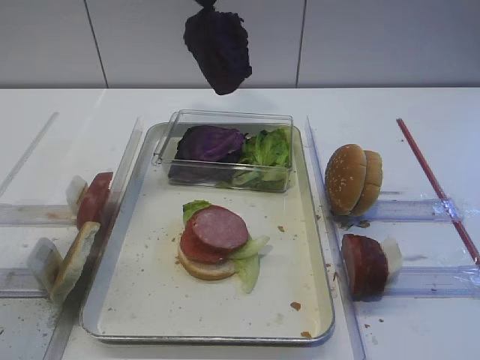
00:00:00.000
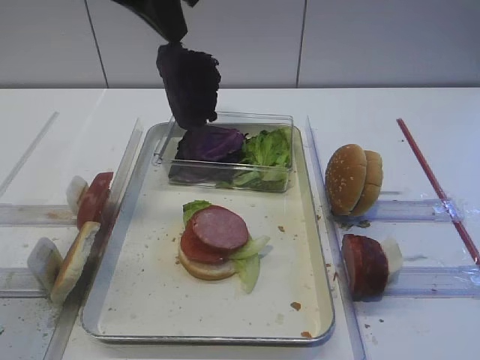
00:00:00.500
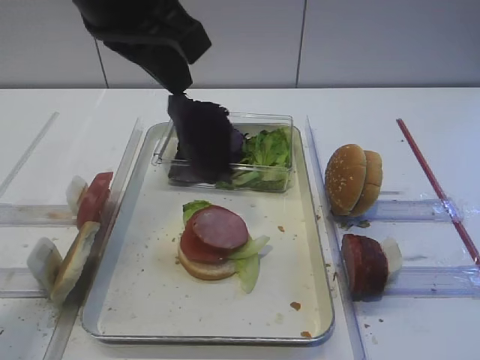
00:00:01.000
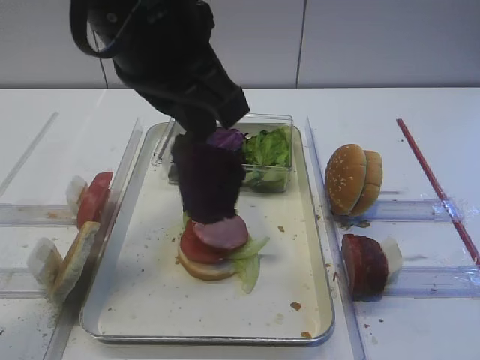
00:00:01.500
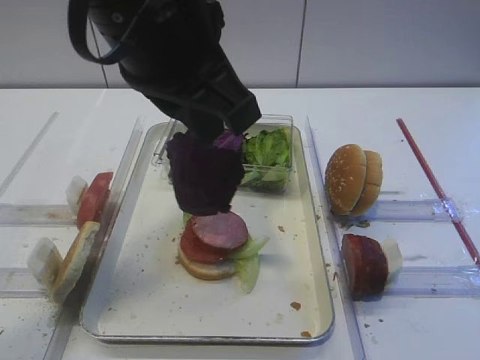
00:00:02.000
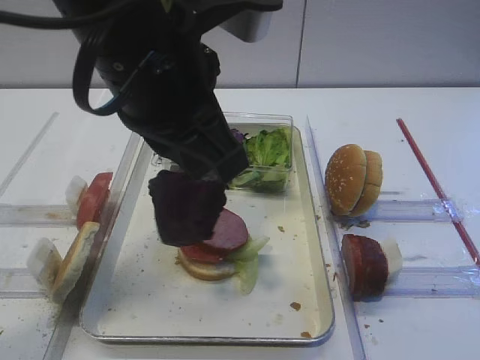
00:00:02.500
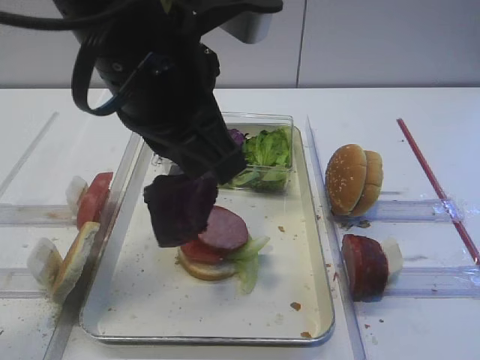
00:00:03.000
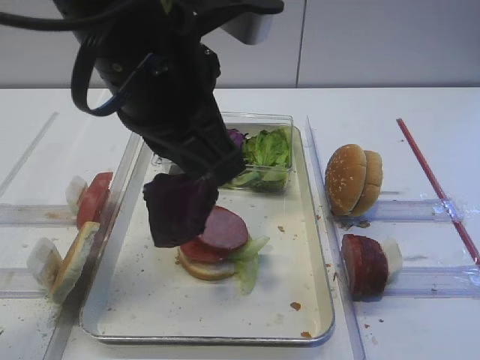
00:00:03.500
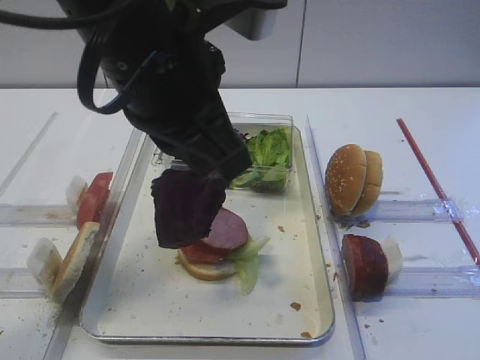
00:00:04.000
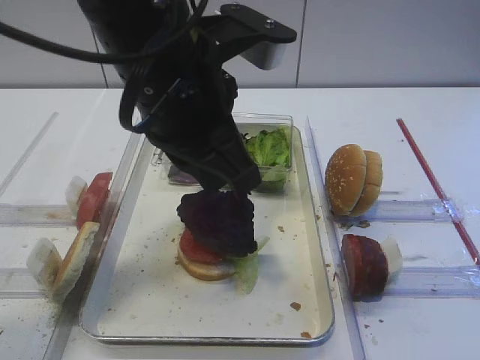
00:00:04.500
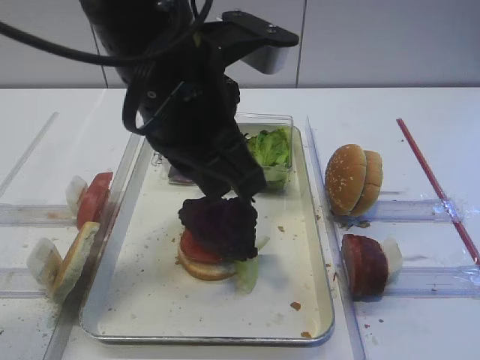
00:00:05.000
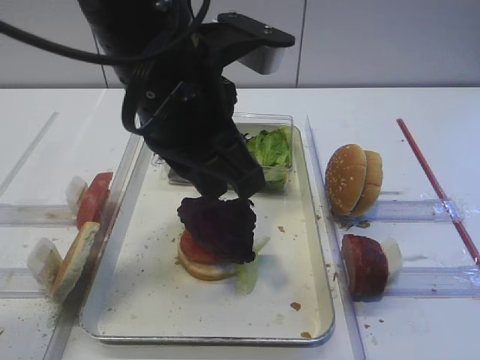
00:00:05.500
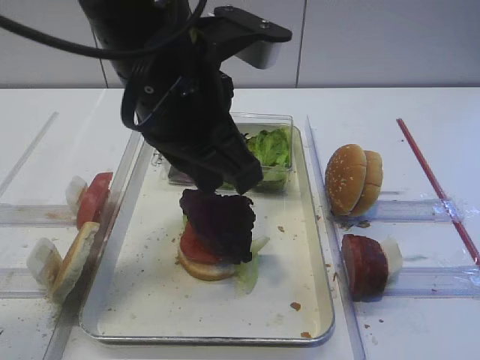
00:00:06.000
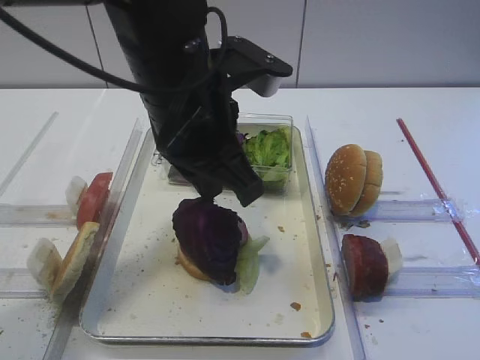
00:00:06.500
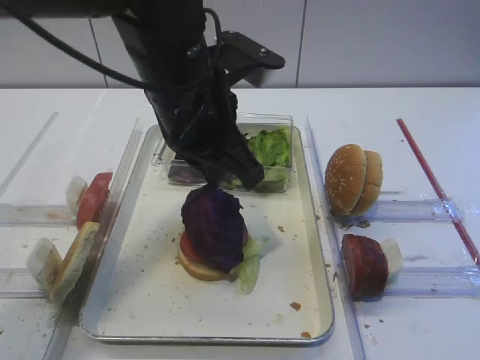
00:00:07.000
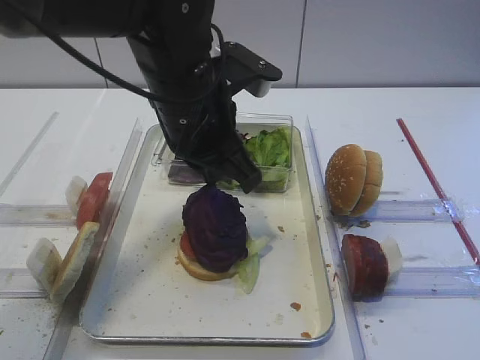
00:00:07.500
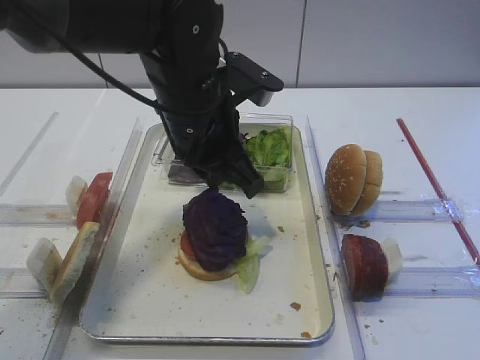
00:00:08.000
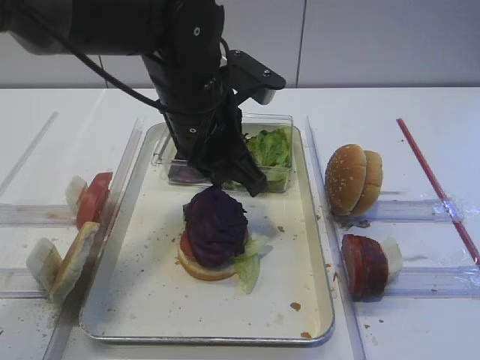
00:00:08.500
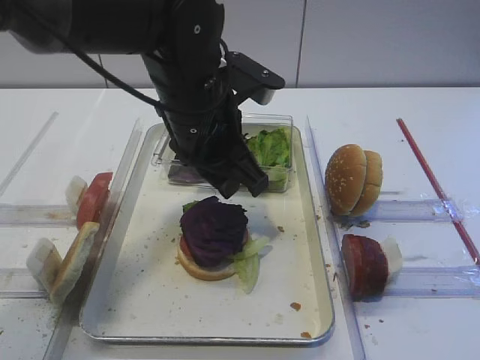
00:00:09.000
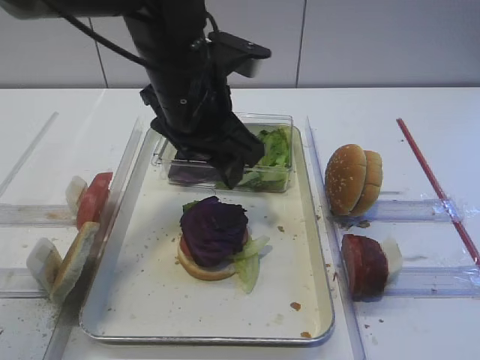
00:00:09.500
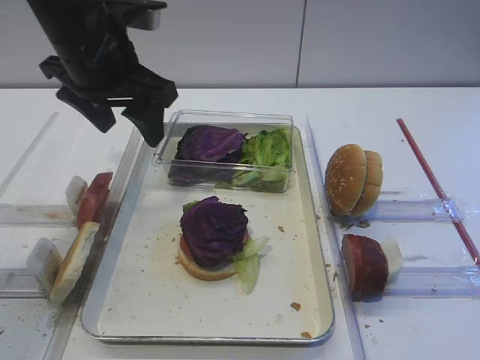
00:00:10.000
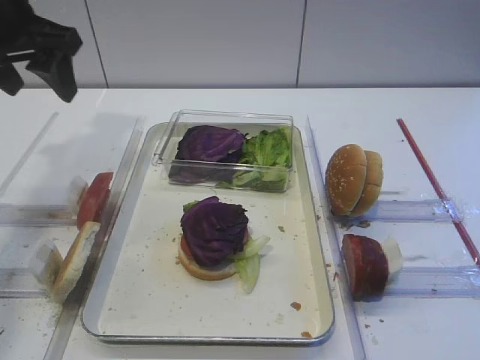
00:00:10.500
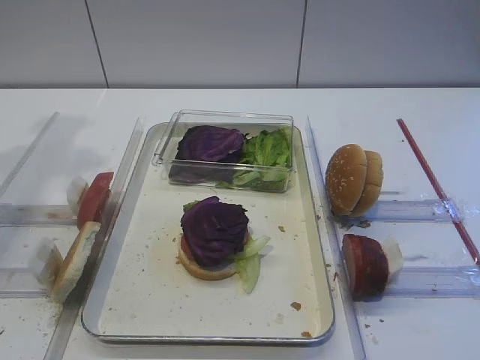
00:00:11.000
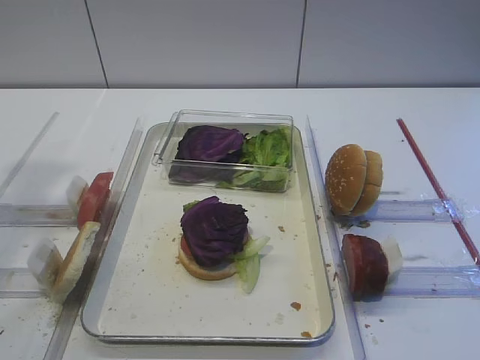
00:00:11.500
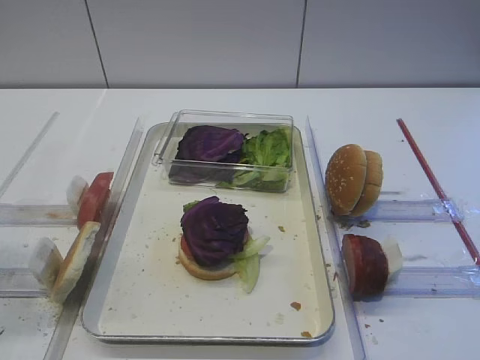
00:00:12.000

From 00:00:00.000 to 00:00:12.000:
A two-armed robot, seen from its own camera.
Step, from 00:00:01.000 to 00:00:10.000: Place the purple cabbage on the cutlet with the left gripper.
From 00:00:00.000 to 00:00:02.000: The left gripper shifts some 15 cm backward.
From 00:00:02.000 to 00:00:06.000: The grippers make only small movements.
From 00:00:06.000 to 00:00:08.000: The left gripper is displaced downward and forward by approximately 10 cm.
From 00:00:08.000 to 00:00:10.000: The left gripper travels to the left by roughly 10 cm, and opens up.
From 00:00:10.000 to 00:00:12.000: The left gripper goes some 30 cm backward and to the left.

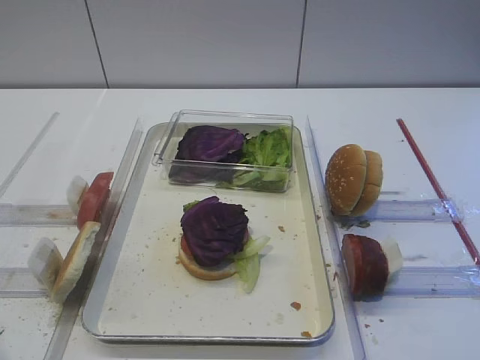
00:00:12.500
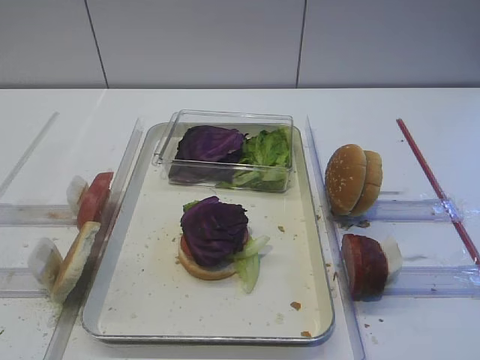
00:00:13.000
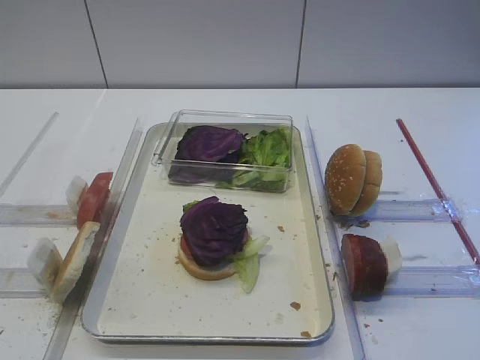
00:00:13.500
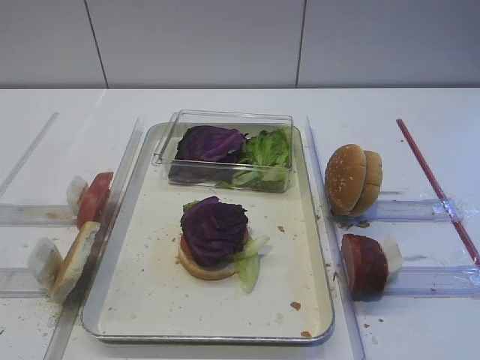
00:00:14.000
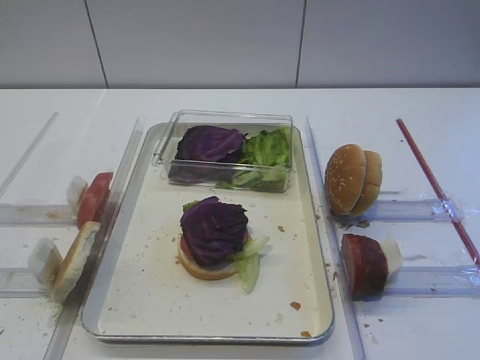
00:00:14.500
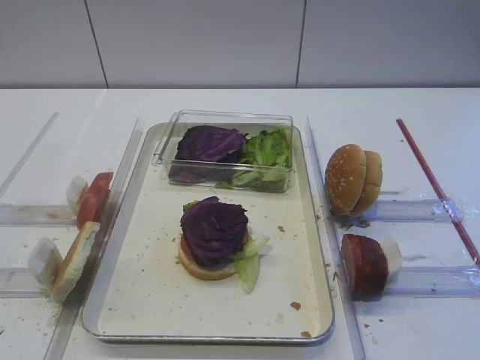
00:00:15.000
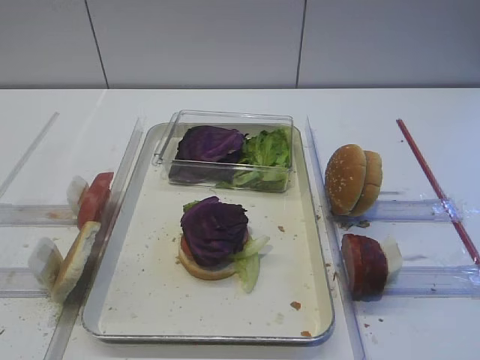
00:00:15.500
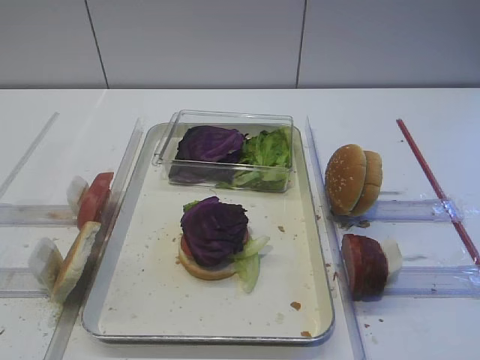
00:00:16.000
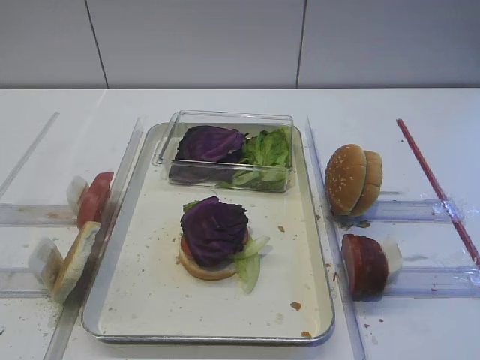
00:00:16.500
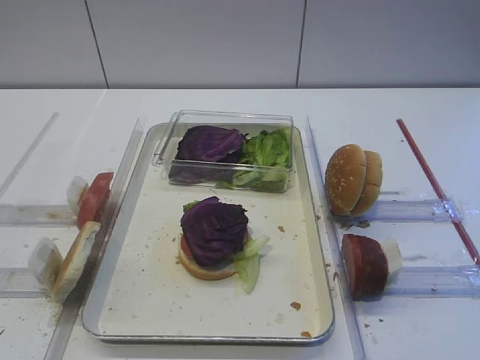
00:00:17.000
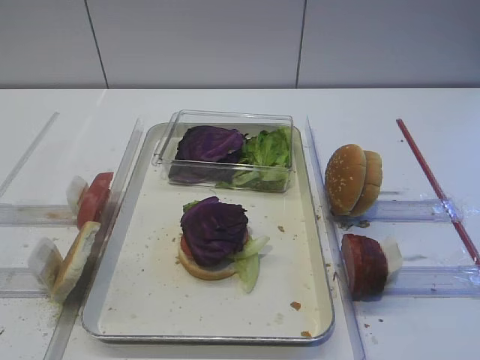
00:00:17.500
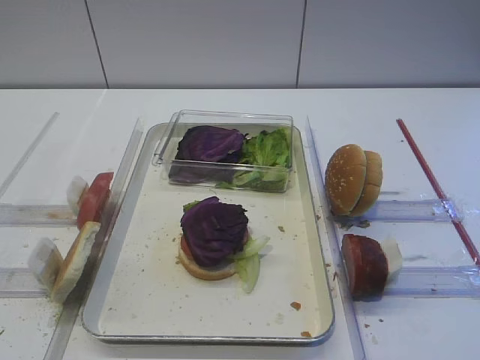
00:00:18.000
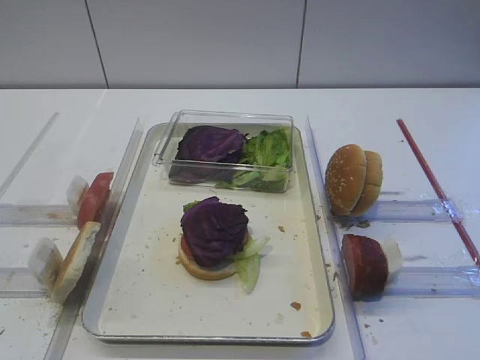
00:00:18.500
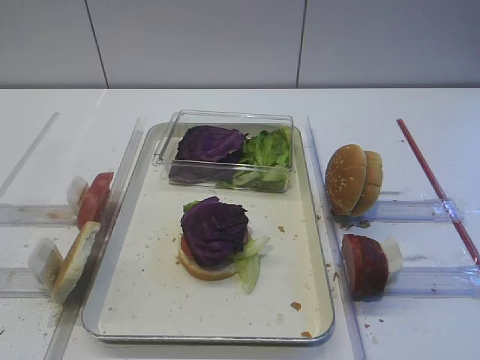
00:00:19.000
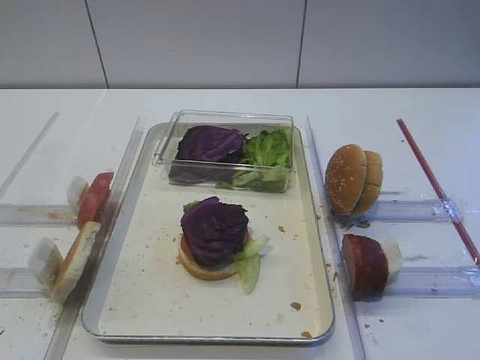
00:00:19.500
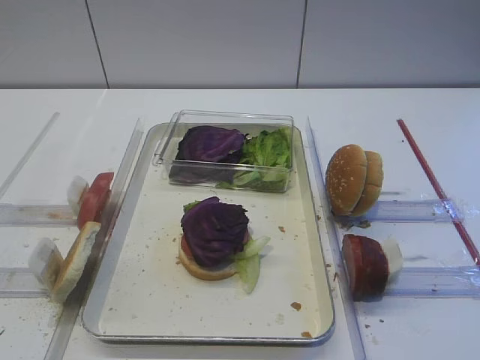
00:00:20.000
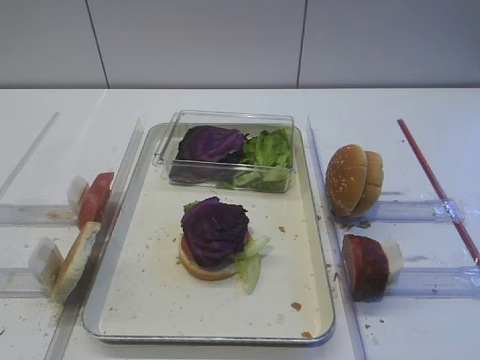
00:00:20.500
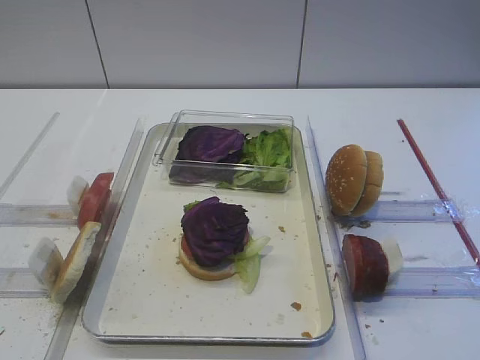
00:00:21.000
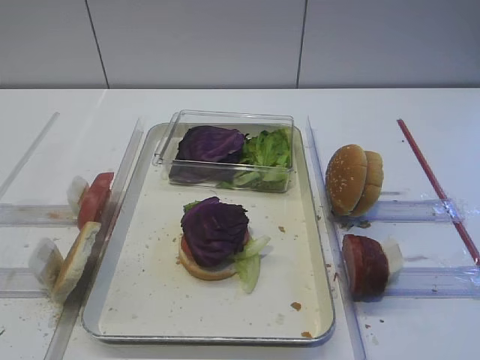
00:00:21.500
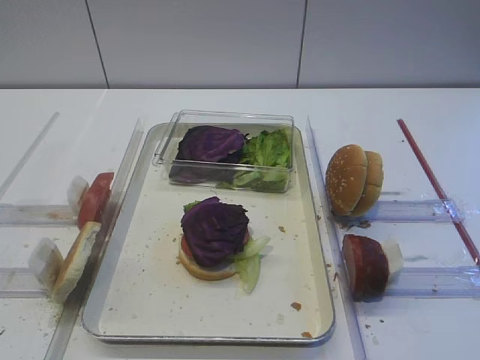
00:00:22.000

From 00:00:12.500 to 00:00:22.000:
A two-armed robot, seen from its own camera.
From 00:00:14.500 to 00:00:22.000: The two grippers keep their place.

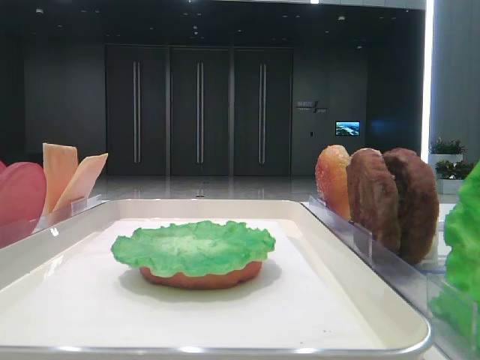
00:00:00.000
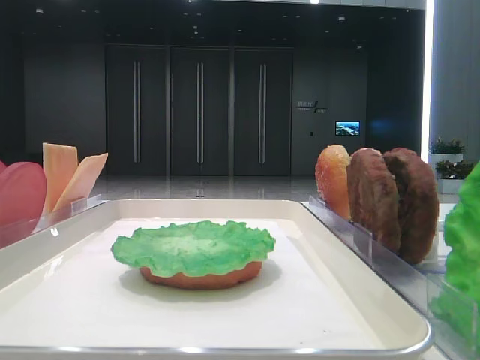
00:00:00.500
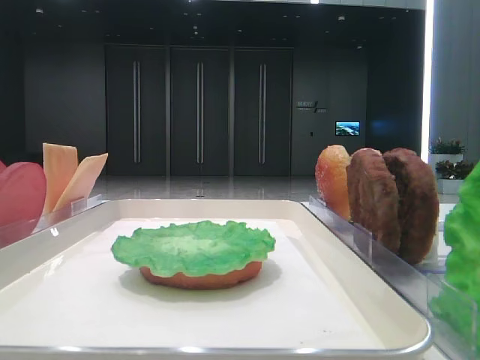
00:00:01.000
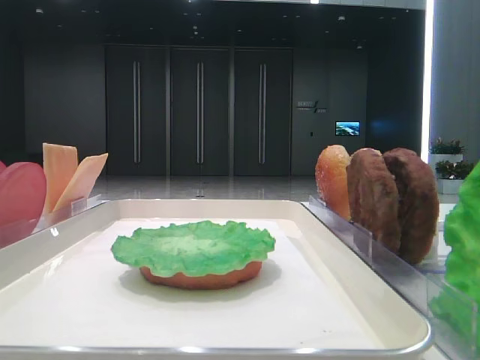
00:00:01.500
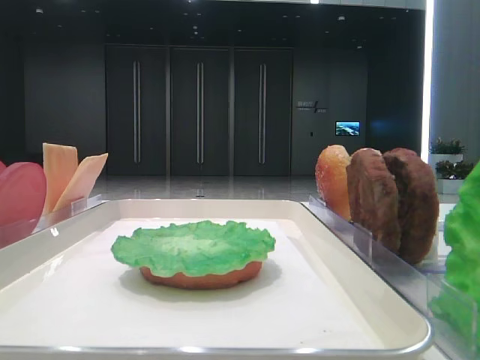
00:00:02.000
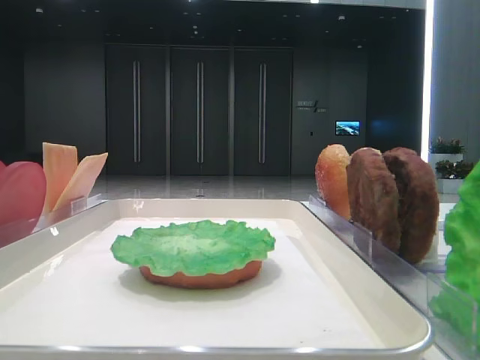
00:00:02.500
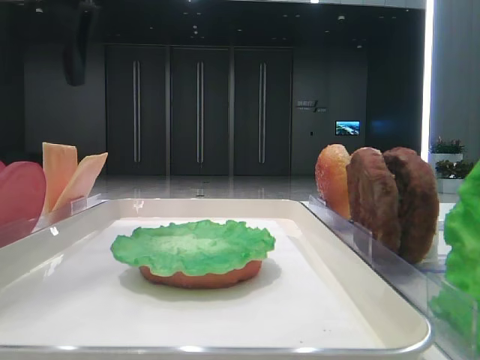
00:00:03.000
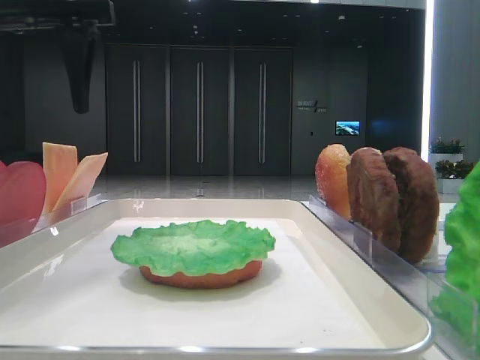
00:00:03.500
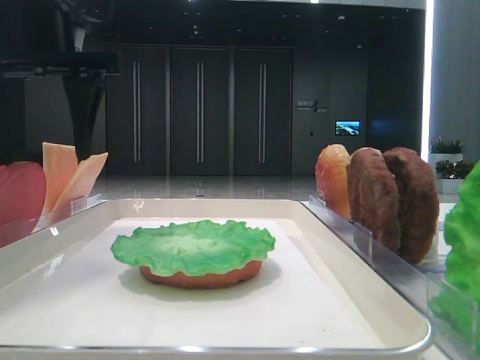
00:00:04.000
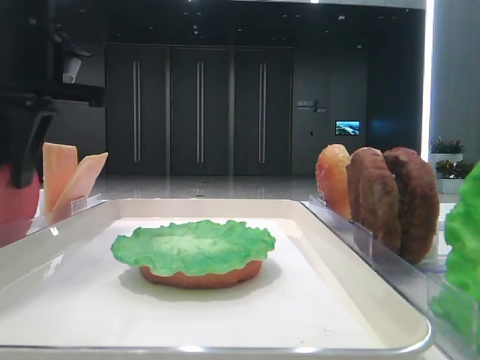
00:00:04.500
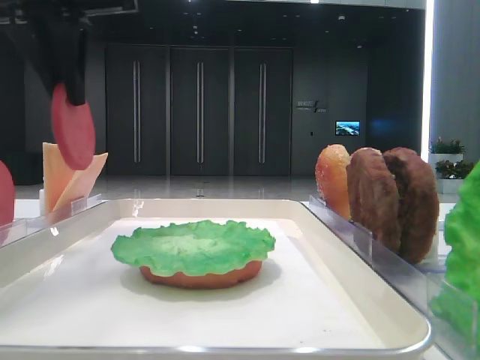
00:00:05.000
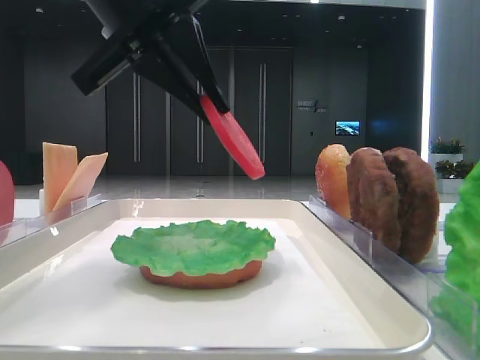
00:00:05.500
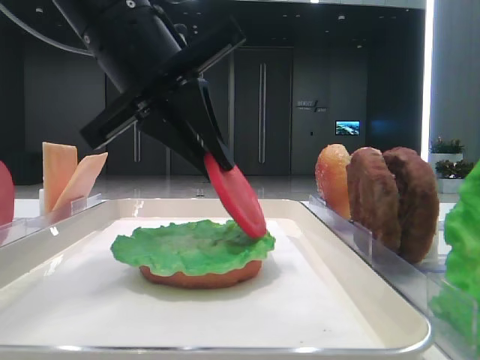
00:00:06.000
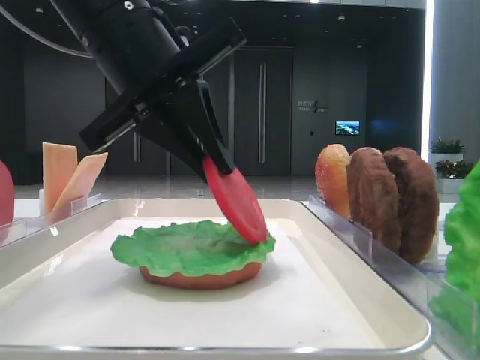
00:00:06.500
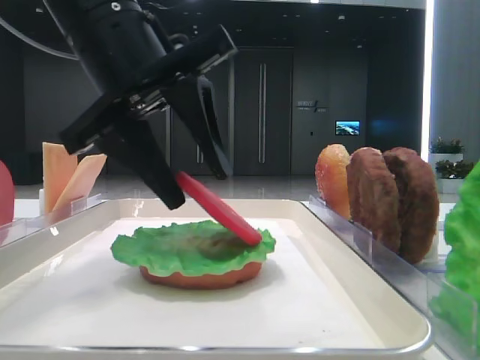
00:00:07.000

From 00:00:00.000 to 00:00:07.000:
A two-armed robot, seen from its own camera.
Step, from 00:00:00.000 to 00:00:04.500: Pick up the tomato slice with the left hand.
From 00:00:02.000 to 00:00:03.500: The left gripper travels forward and to the right by about 30 cm.
From 00:00:03.500 to 00:00:05.000: The left gripper closes.
From 00:00:05.000 to 00:00:07.000: The left gripper heads downward and to the right, covering some 10 cm, and opens.
